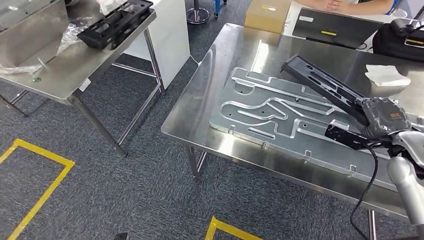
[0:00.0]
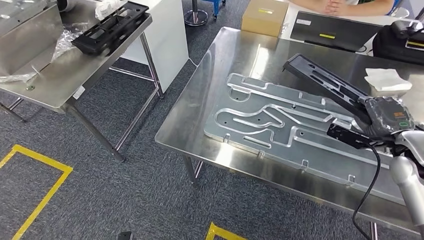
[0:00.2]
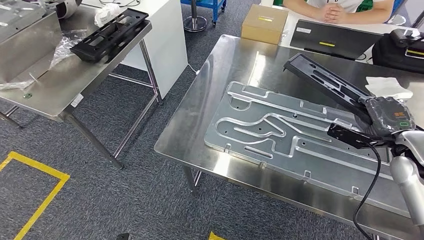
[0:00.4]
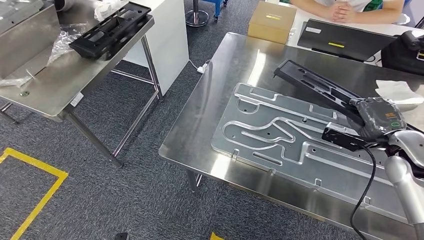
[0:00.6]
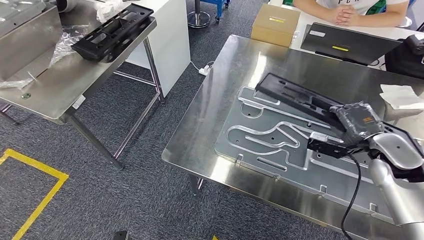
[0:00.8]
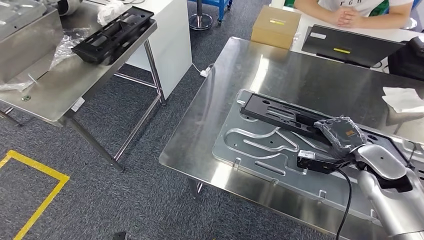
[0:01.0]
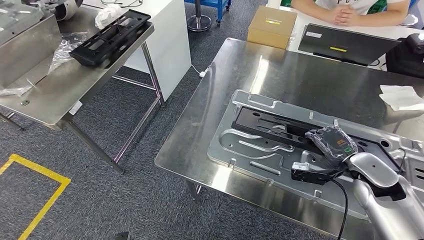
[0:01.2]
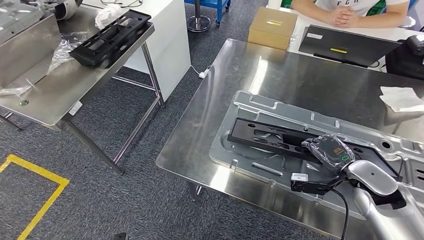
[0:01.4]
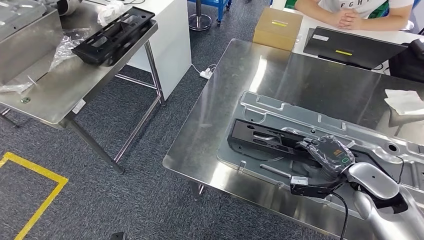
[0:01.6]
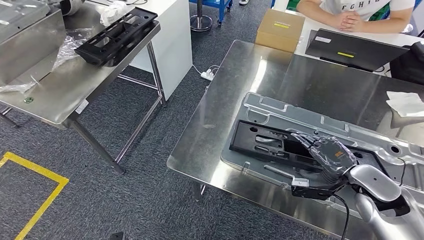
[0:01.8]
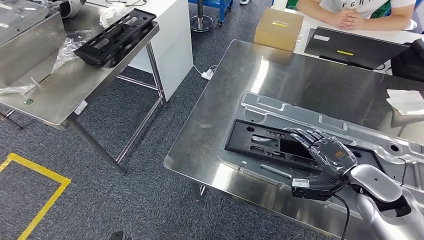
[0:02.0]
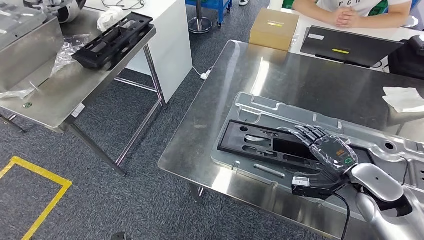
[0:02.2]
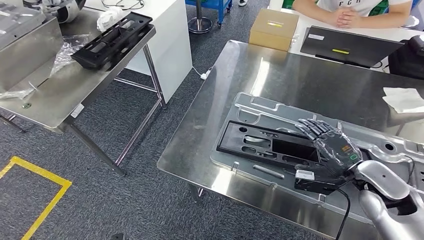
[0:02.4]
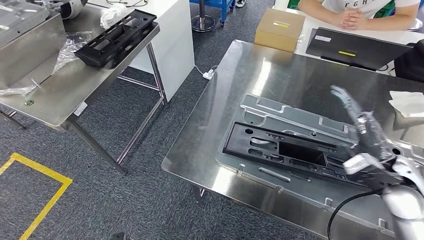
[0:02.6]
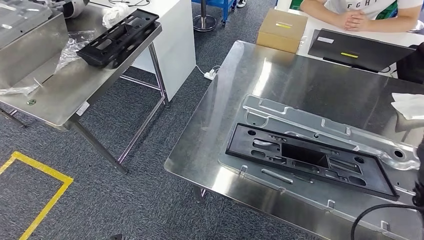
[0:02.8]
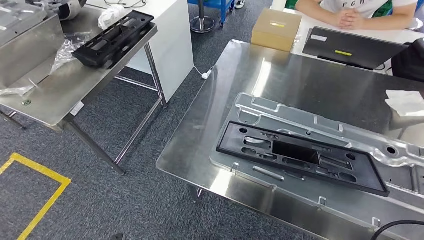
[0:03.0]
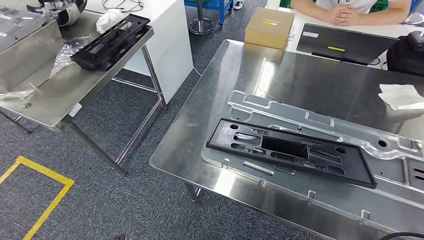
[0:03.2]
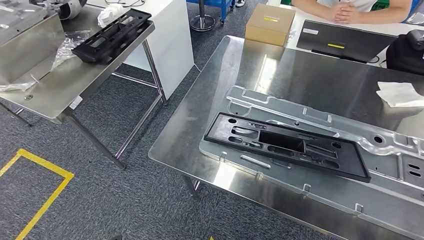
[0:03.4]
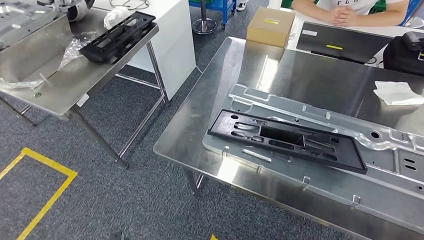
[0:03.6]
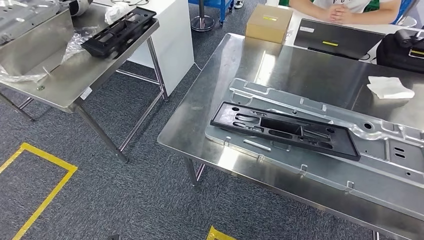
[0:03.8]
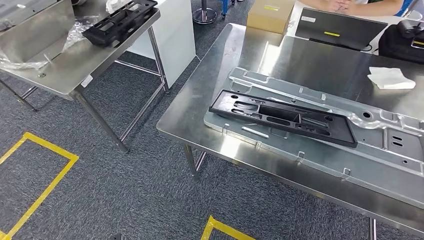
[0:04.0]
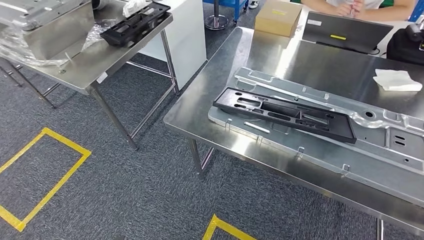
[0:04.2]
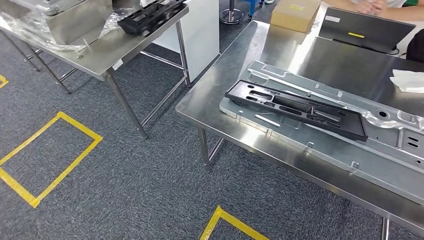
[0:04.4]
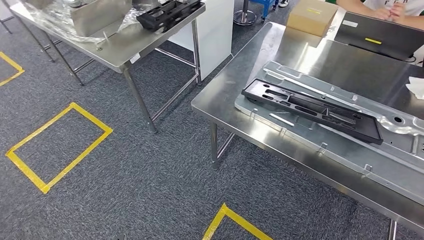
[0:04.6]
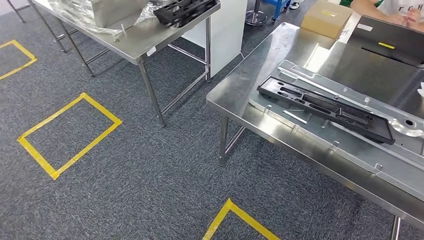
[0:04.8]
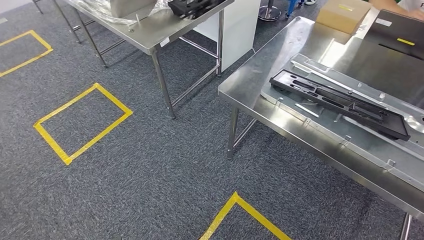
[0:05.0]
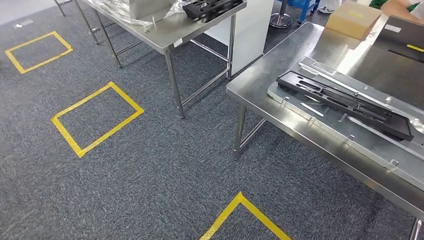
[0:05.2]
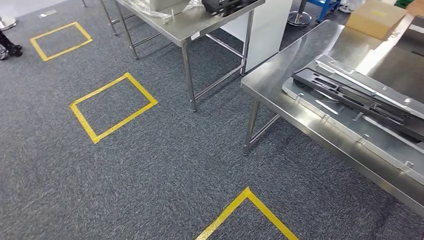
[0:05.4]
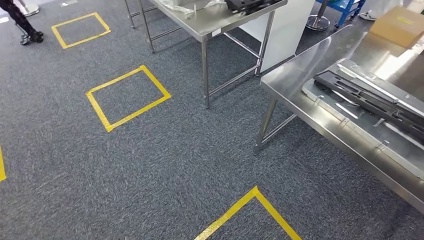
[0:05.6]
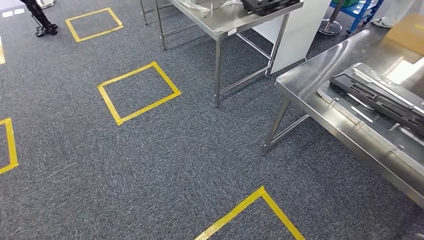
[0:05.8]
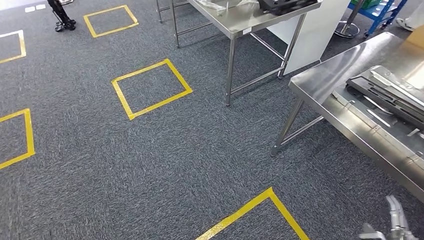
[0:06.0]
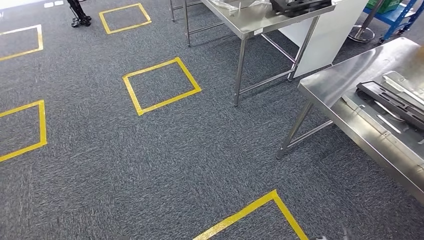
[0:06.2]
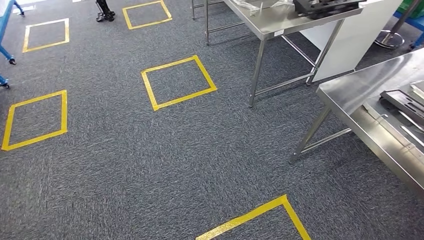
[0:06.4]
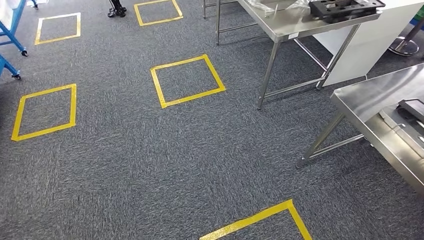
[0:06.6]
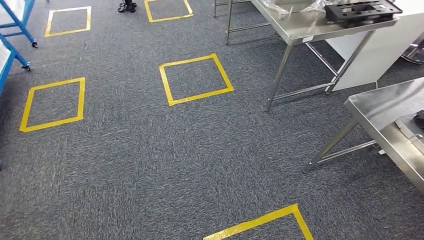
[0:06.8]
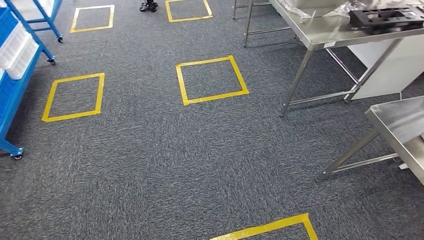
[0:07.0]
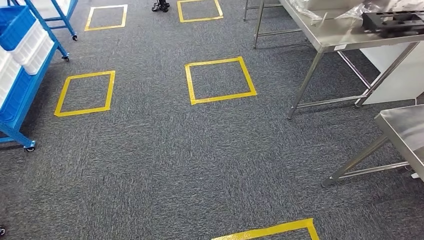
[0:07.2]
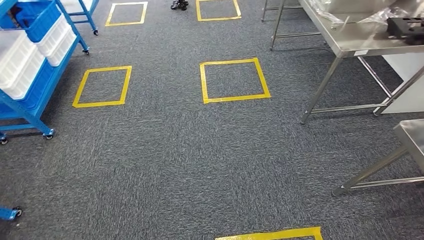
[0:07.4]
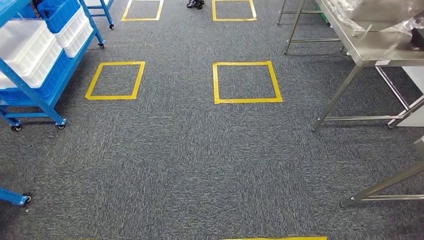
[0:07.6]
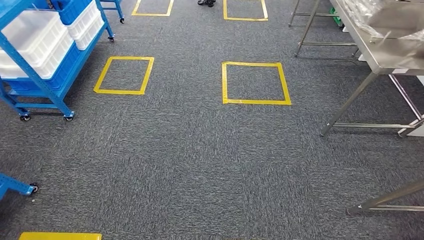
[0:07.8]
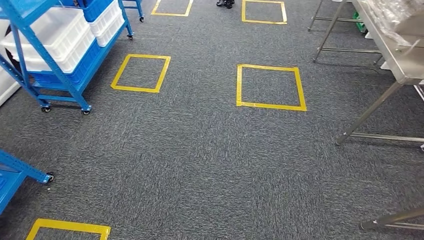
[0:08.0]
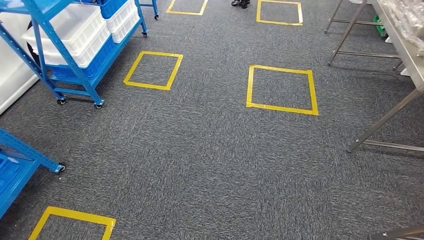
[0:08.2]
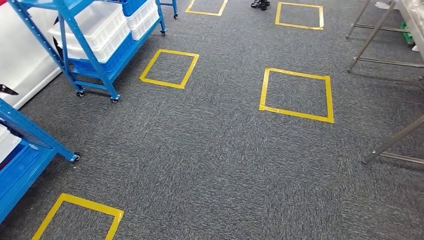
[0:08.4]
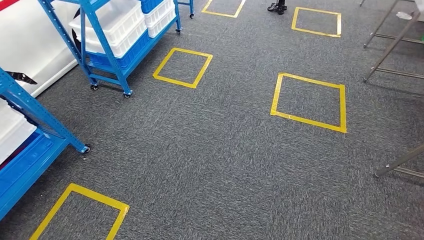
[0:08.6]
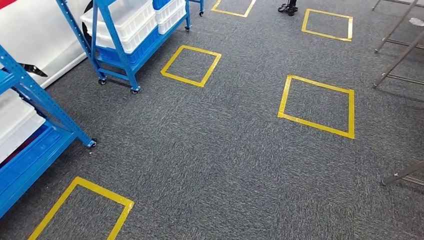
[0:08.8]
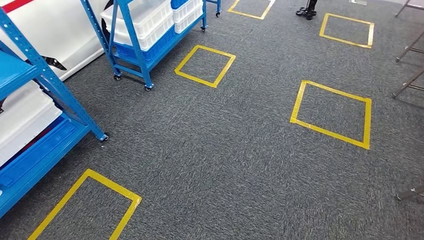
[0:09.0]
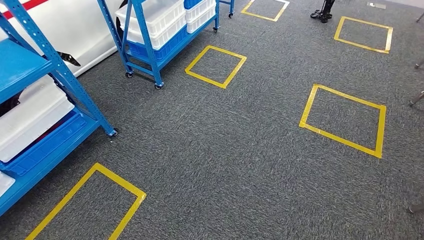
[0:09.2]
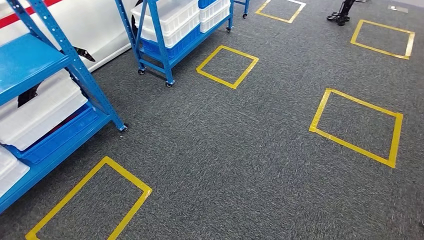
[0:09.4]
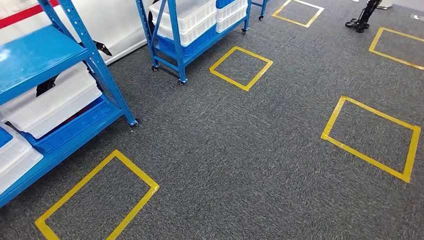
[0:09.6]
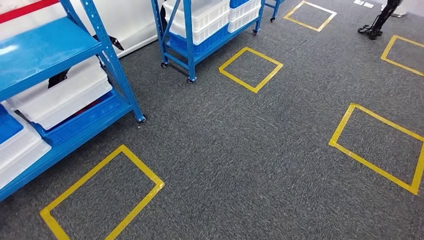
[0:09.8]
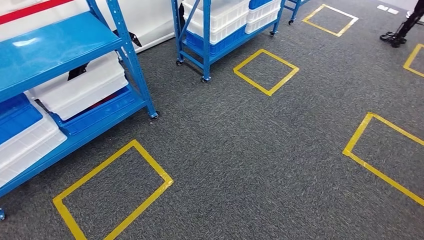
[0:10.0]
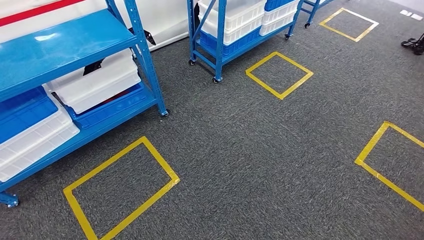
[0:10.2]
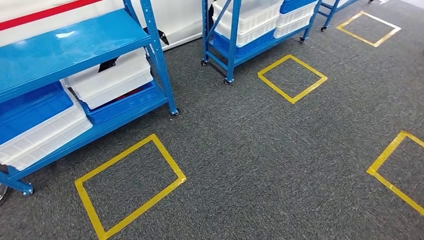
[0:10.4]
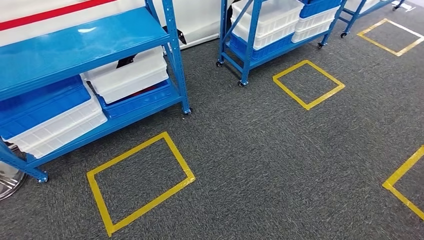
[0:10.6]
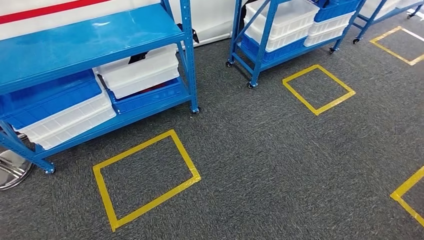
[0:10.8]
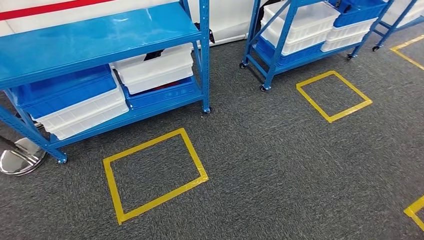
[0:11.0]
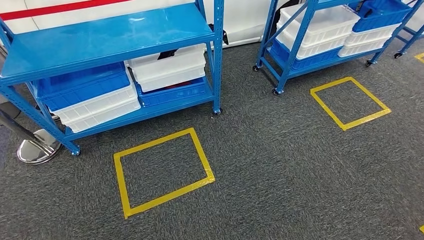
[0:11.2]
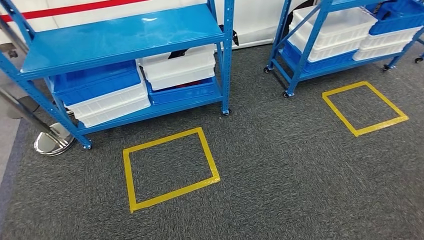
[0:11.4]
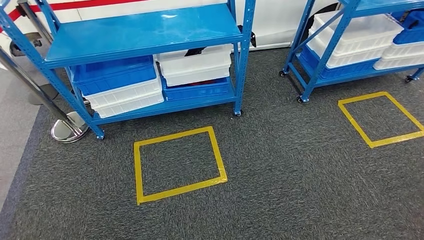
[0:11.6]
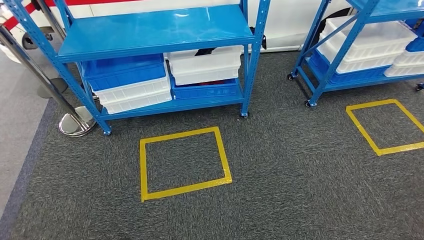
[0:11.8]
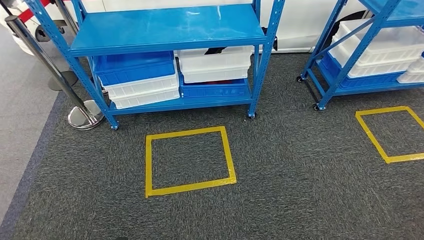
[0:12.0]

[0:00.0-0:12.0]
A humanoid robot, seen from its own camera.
Step, 0:00.6 to 0:05.4: Insert the large material into the corresponding slot on the workbench.

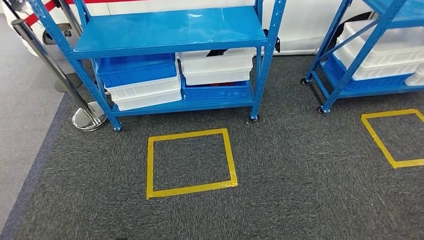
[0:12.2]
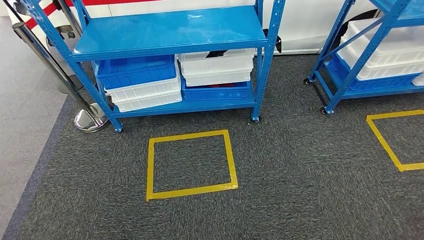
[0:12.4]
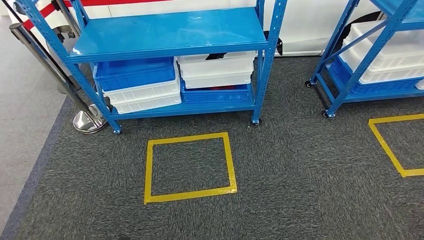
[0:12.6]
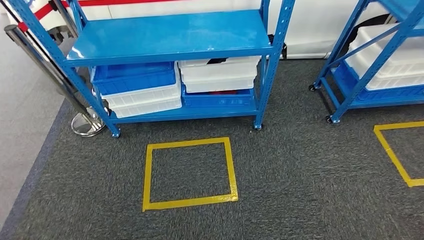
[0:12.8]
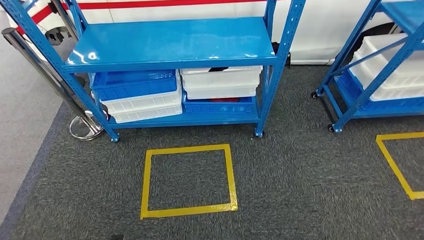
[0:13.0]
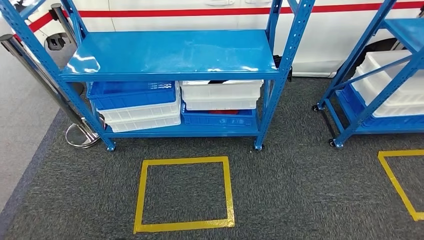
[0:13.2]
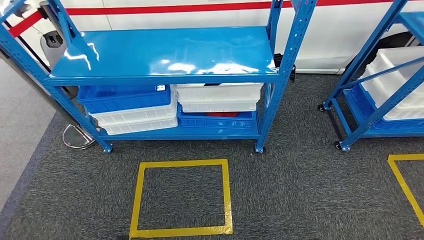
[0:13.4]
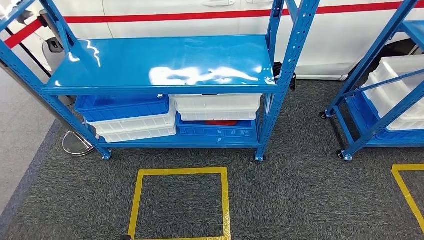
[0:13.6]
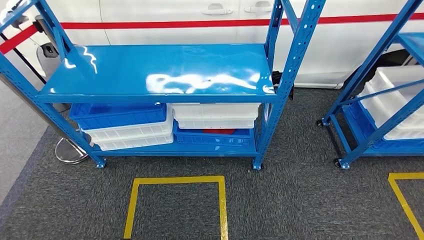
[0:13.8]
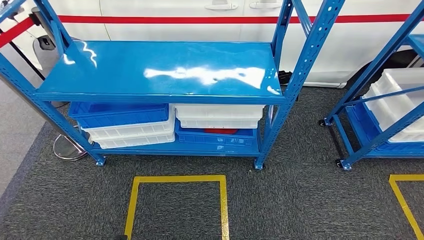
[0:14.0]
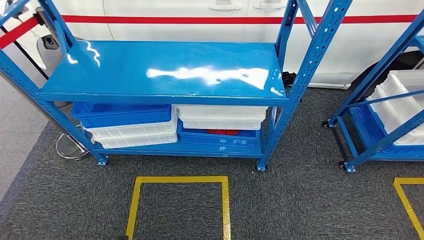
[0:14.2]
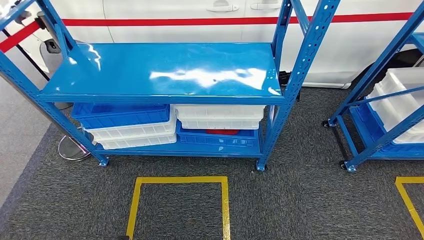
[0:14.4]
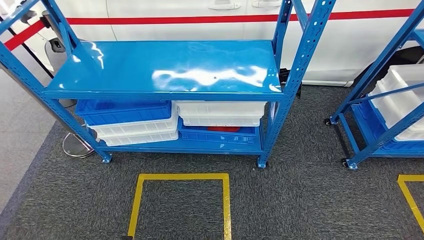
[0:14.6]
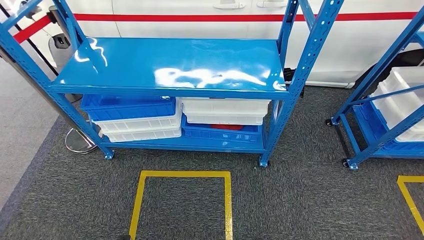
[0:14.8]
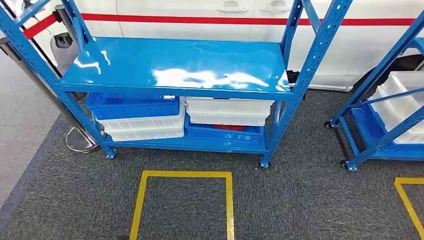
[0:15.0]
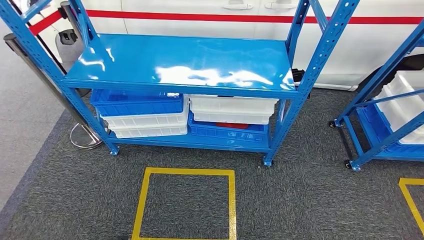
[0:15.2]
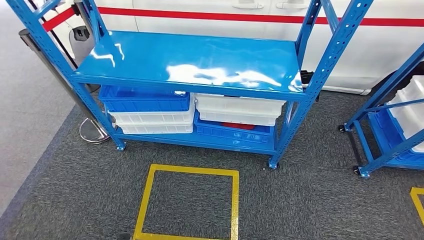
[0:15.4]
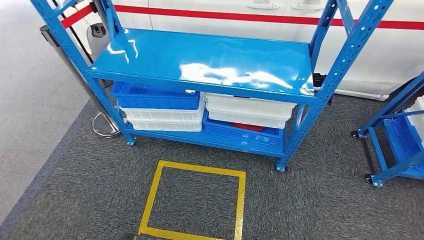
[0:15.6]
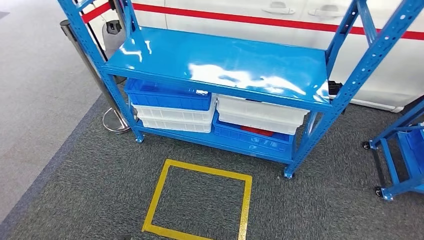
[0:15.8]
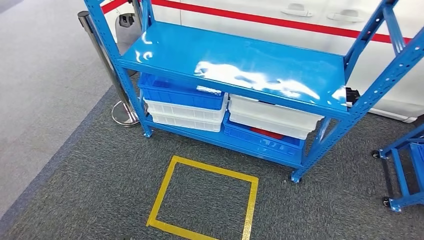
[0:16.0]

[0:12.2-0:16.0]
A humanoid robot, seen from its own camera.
Step, 0:12.2 to 0:16.0: Move to the initial position of the shelf.
